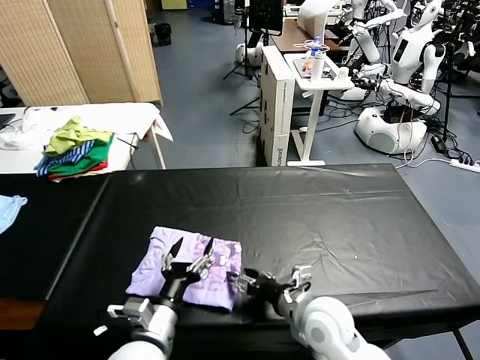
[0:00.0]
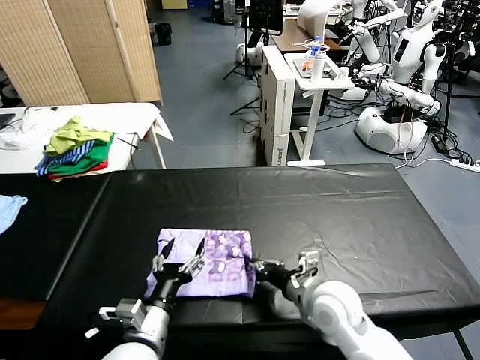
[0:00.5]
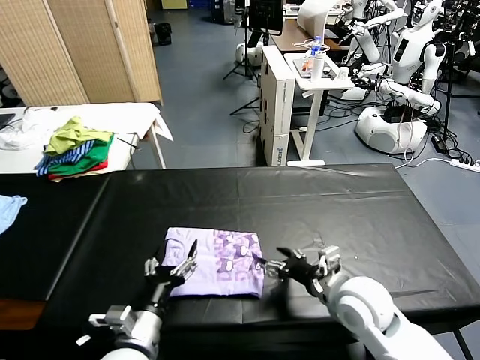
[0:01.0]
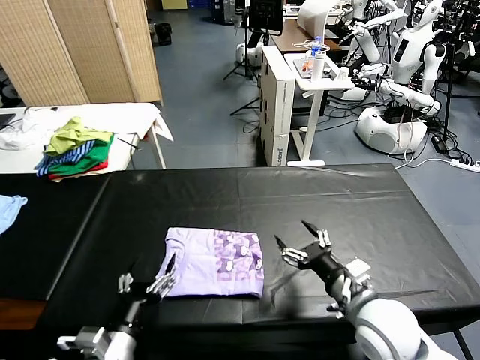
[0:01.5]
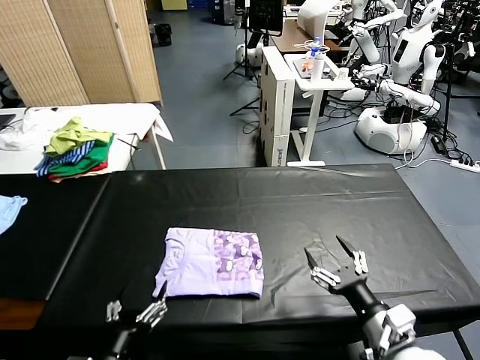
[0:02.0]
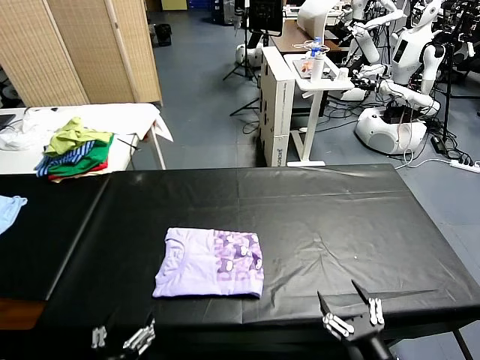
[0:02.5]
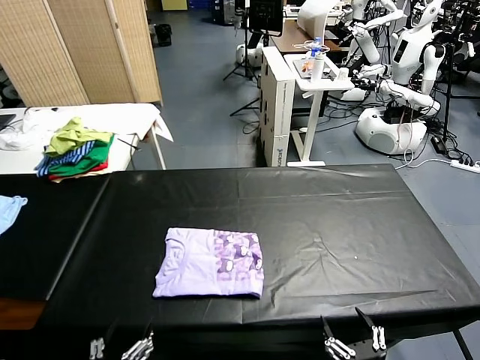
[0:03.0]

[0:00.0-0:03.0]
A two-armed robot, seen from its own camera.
Task of the whole recording: fold and organize the clothes.
0:00.0 to 0:01.5: The right gripper heads to the right and upward, covering some 10 cm, and closes, then reopens; the left gripper heads to the left, covering some 5 cm.
0:01.5 to 0:03.0: The left gripper heads backward, covering some 10 cm; the right gripper shifts roughly 20 cm backward.

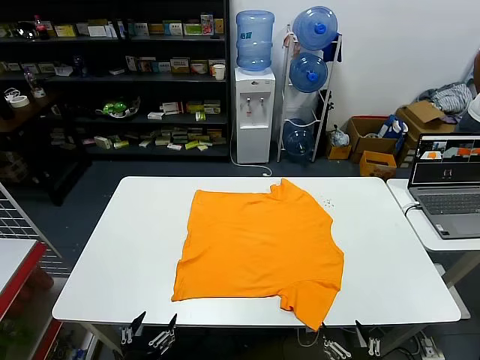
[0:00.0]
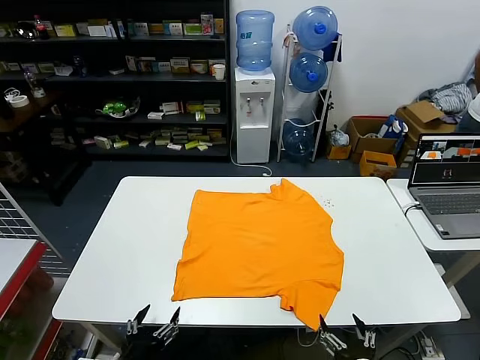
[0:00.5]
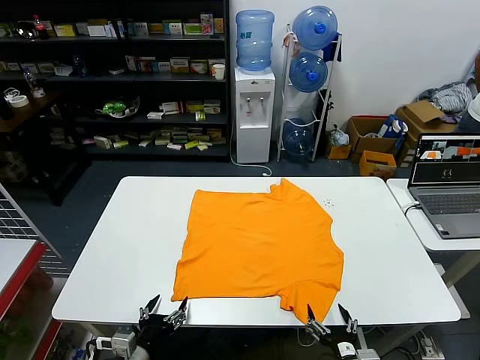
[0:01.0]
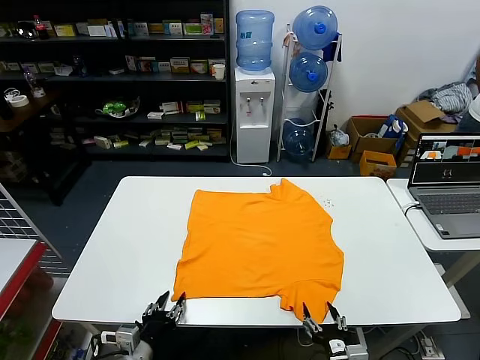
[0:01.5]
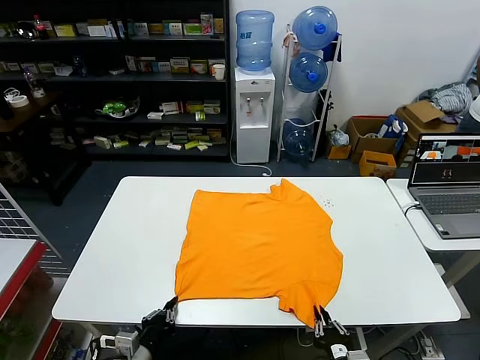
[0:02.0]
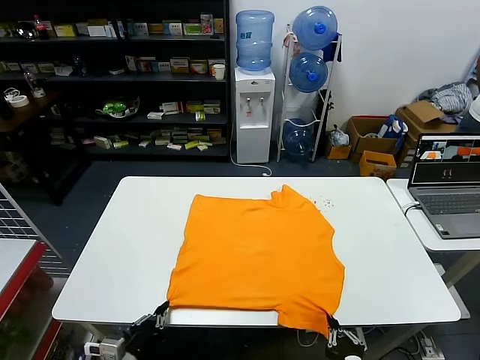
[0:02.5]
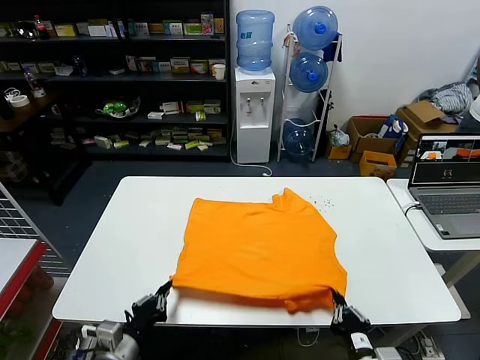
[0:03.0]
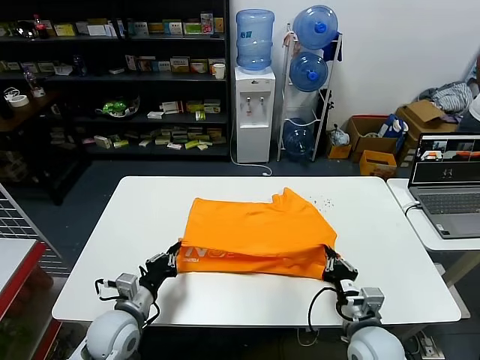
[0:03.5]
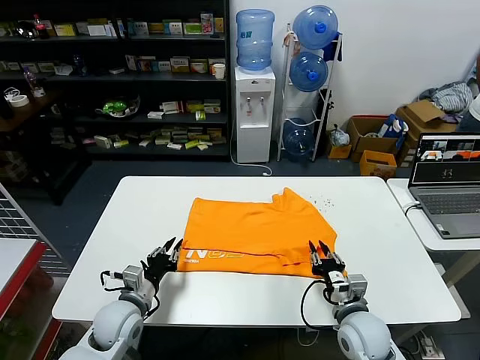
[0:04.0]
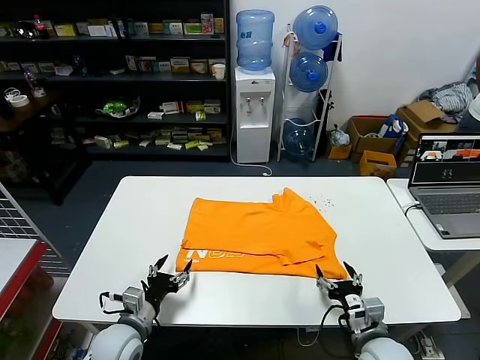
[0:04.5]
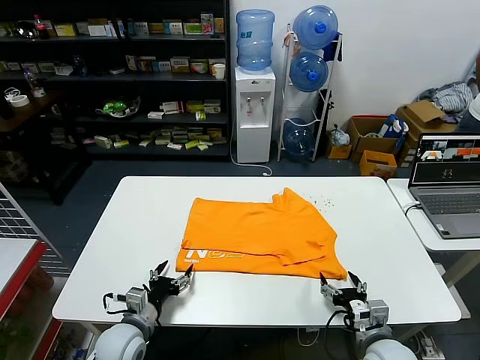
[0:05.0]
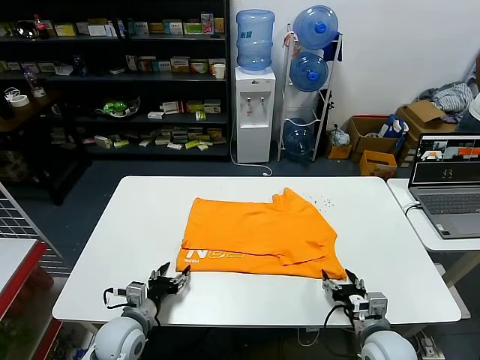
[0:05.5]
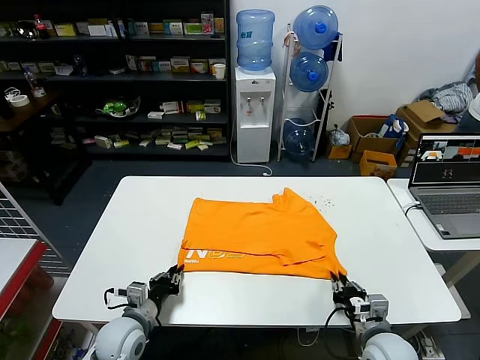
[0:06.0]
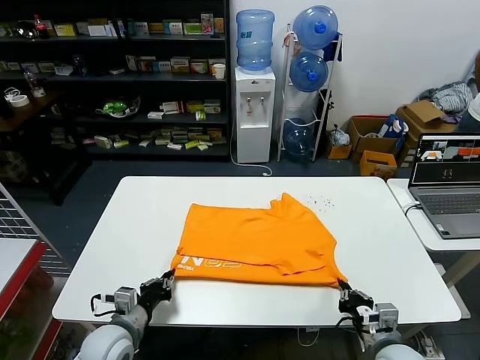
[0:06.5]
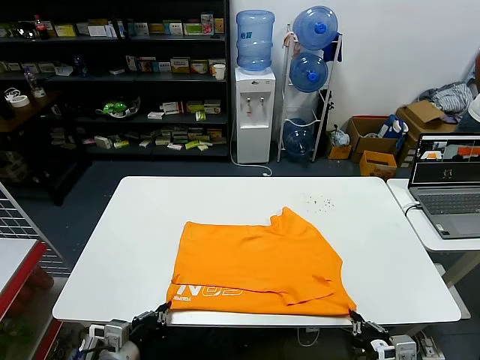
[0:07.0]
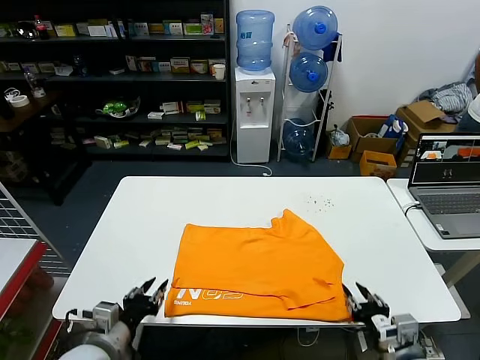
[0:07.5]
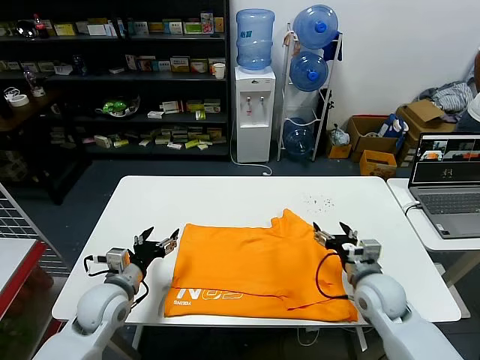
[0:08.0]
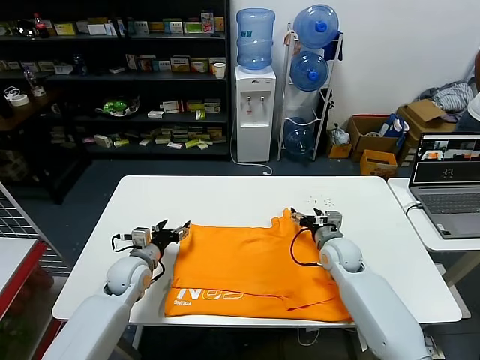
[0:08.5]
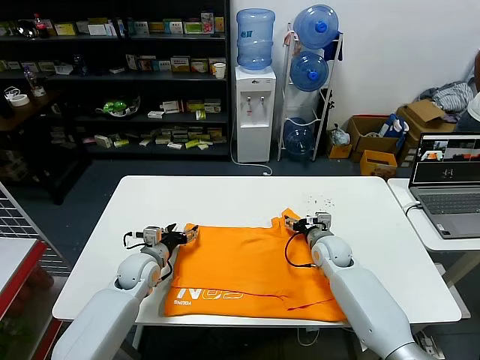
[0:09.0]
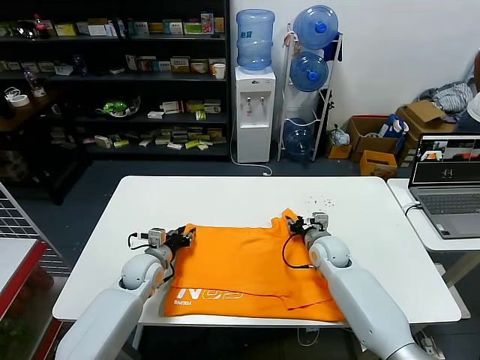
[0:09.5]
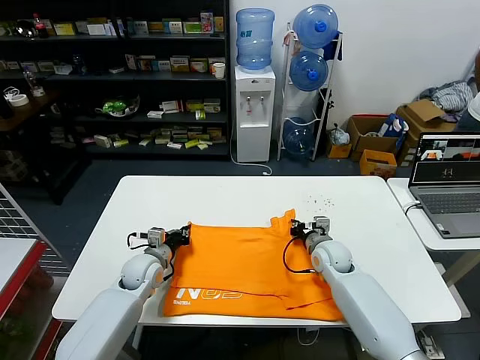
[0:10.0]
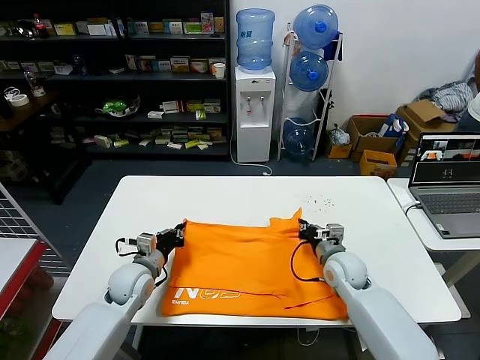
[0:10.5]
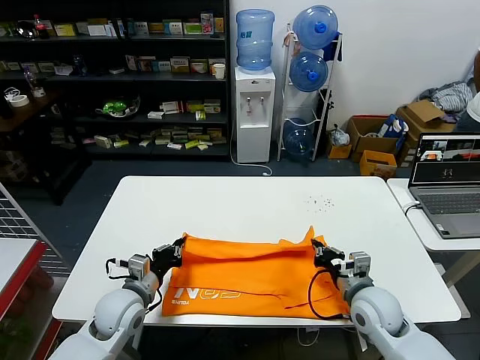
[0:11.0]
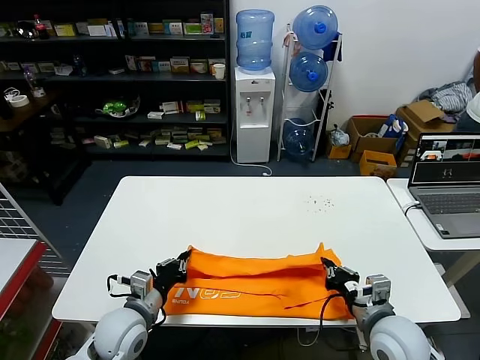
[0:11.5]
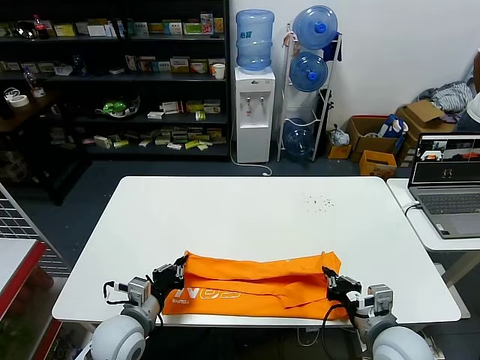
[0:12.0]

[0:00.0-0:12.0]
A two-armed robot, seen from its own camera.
Task of the whole recording: fold and organize the clothes.
Step, 0:00.0 to 0:02.0: use both grippers simultaneously to clamp the lower edge of the clothing fabric.
Step, 0:02.5 to 0:03.5: use both grippers to drag the lower edge of the fabric forward and fold it over the upper edge.
Step, 0:04.5 to 0:07.0: Drag the clothes downward with both gripper.
Step, 0:07.5 to 0:09.5: use both grippers simultaneously to clamp the upper edge of the clothing fabric.
0:02.0 to 0:04.0: The grippers both shift forward by roughly 15 cm. The right gripper opens.
0:04.0 to 0:06.0: The left gripper opens and closes again, while the right gripper moves roughly 5 cm, and opens and closes again.
0:06.0 to 0:08.0: The left gripper goes about 10 cm upward, travels backward and back again, roughly 10 cm each way, and opens its fingers. The right gripper travels forward and upward by approximately 15 cm, and opens.
0:08.0 to 0:10.0: The left gripper shifts about 15 cm forward and downward, and closes; the right gripper is displaced forward, downward and to the left by roughly 15 cm, and closes up.
0:10.0 to 0:12.0: The grippers both shift backward by about 20 cm.

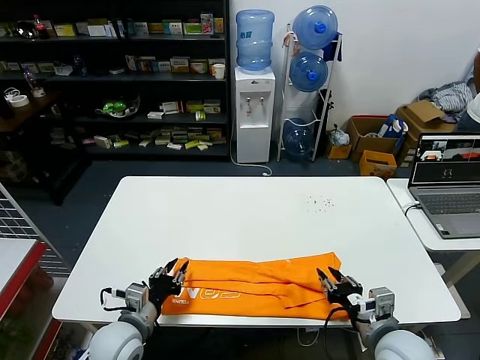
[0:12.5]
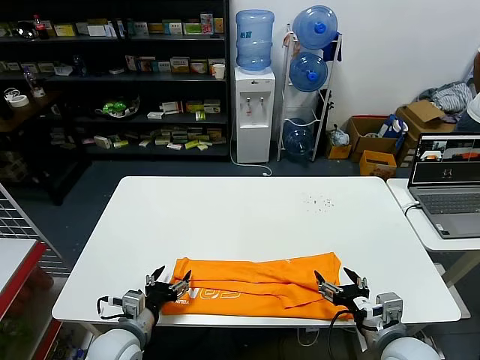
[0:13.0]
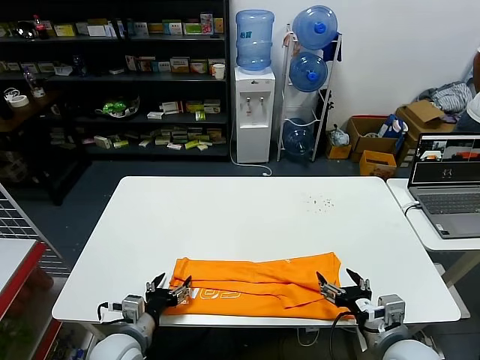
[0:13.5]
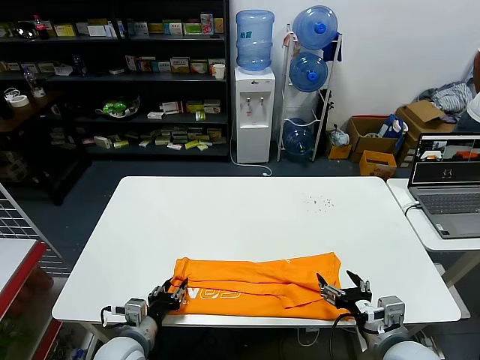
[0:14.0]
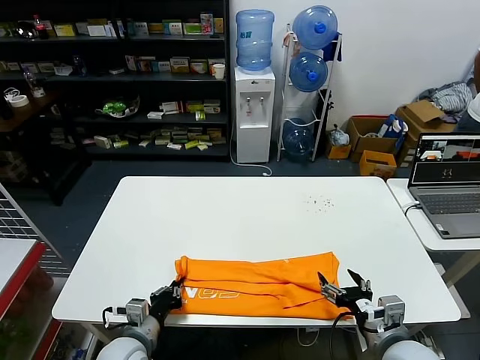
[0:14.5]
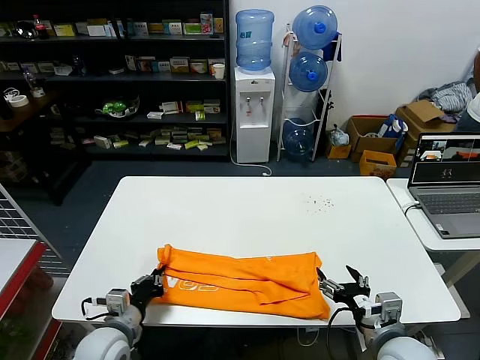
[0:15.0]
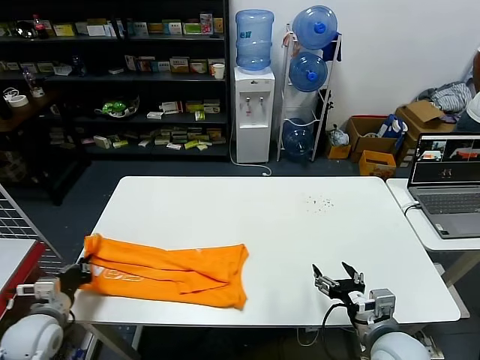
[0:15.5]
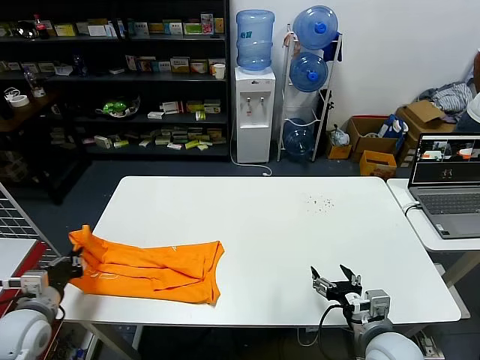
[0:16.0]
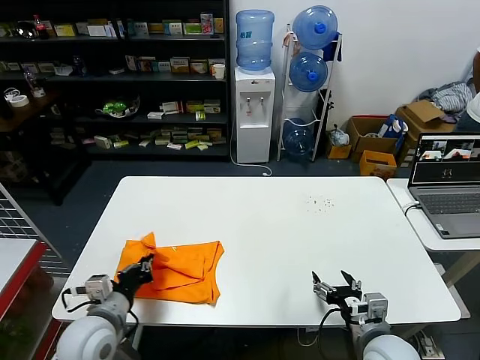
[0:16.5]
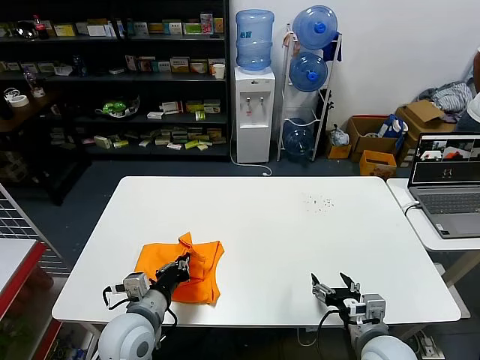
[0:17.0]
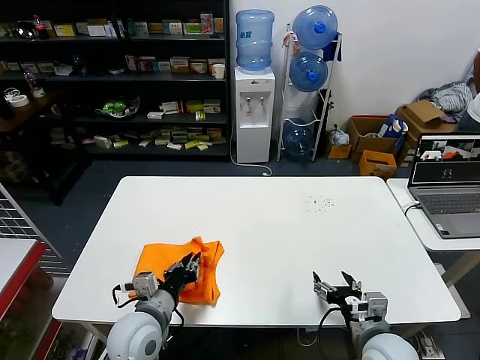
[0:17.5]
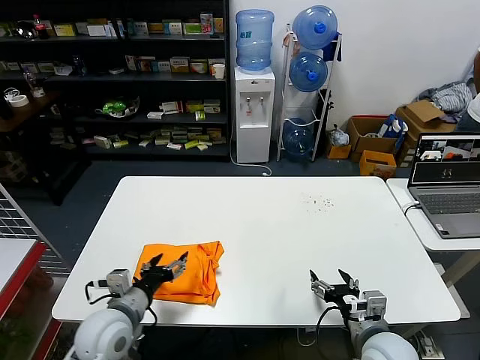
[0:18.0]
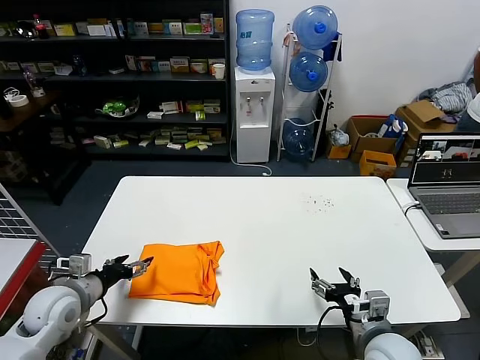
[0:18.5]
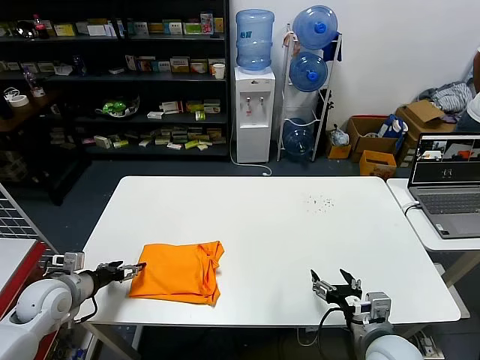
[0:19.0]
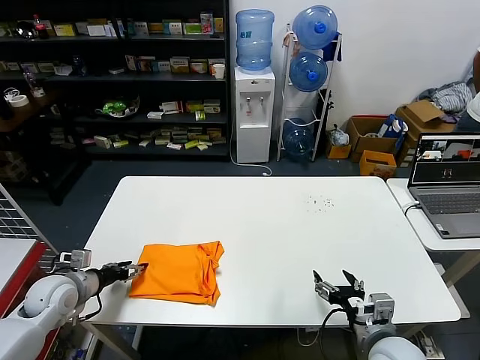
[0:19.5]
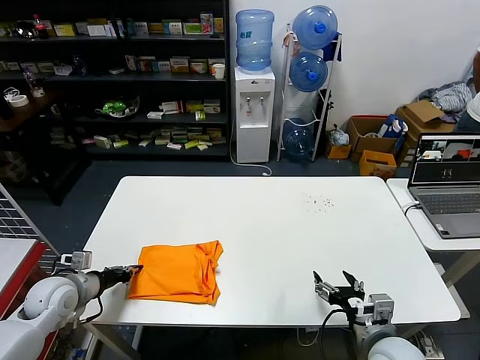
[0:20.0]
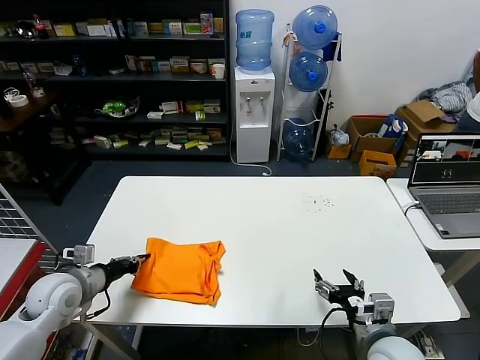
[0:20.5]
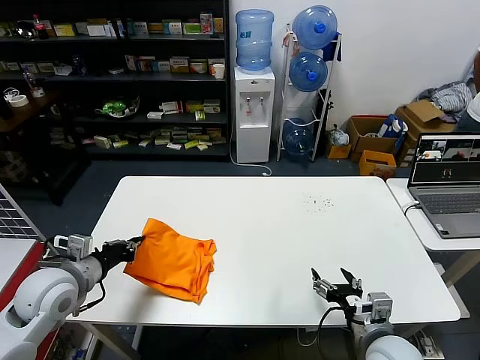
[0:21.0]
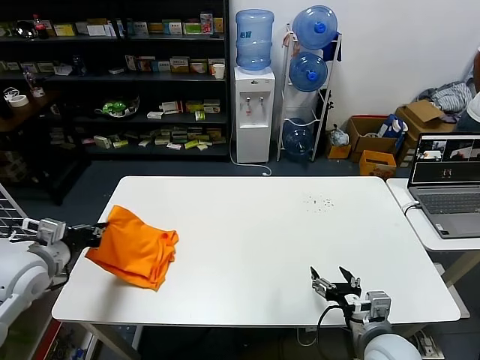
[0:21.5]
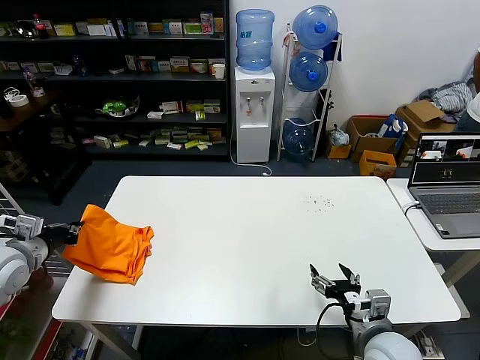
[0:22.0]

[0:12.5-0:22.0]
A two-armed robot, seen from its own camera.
Task of the whole recording: fold and organize the clothes.
Step, 0:13.0 to 0:14.0: use the left gripper to clamp the left edge of the fabric.
Step, 0:14.5 to 0:17.5: use the left gripper to drag the left edge of the fabric to the left and folds it over the right edge.
0:12.5 to 0:14.5: The right gripper opens its fingers, while the left gripper closes.
0:14.5 to 0:16.5: The left gripper shifts approximately 10 cm upward, and goes to the left and returns, about 20 cm each way.
0:16.5 to 0:18.0: The left gripper shifts roughly 5 cm to the right, and opens.
0:18.0 to 0:20.0: The left gripper goes roughly 20 cm to the left and forward, and closes.
0:20.0 to 0:22.0: The left gripper shifts some 15 cm upward.
